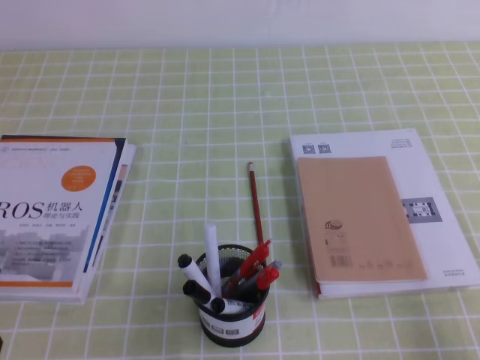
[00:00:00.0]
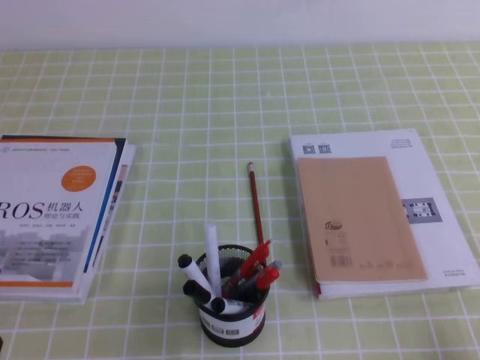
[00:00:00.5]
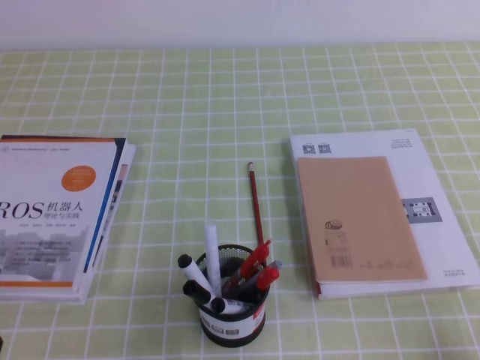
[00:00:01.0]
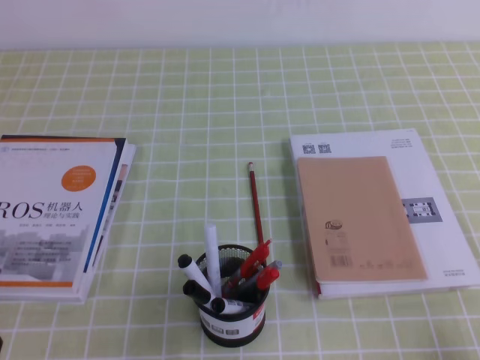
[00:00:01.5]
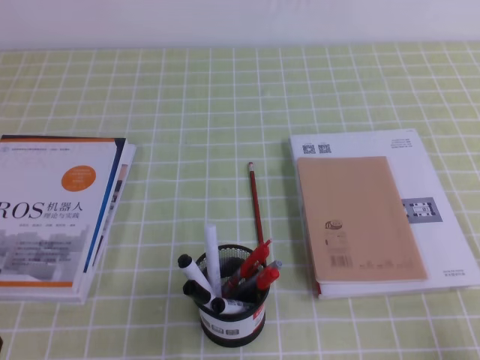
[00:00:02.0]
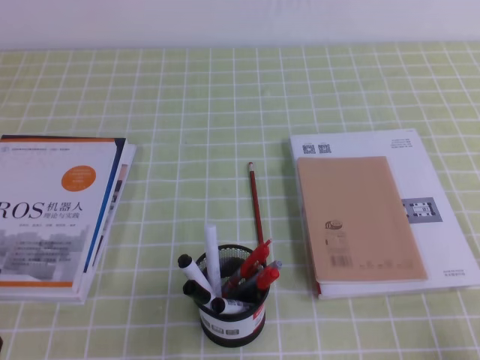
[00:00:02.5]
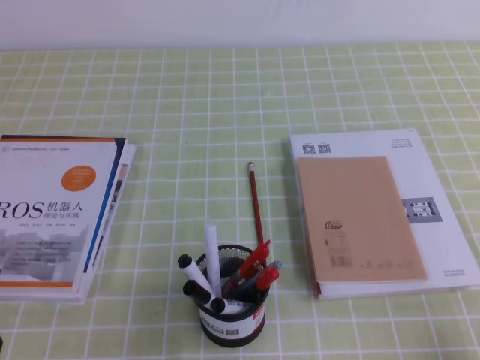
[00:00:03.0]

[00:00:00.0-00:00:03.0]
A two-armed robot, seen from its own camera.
00:00:01.5 to 00:00:03.0: Neither gripper changes place.
